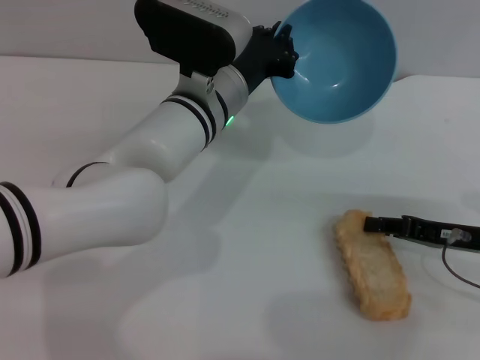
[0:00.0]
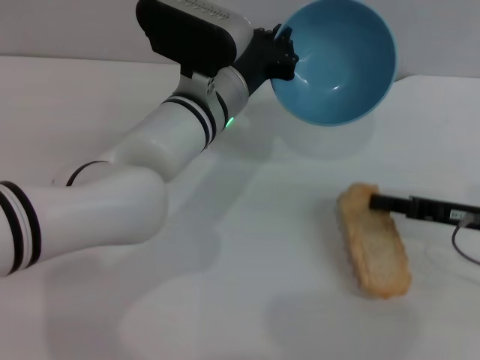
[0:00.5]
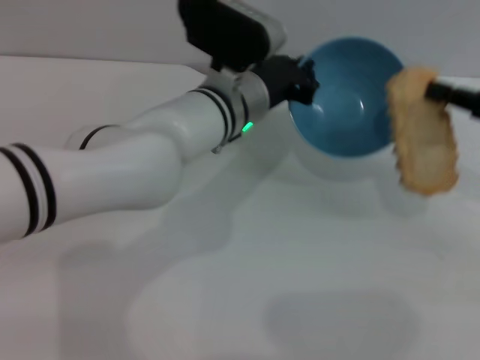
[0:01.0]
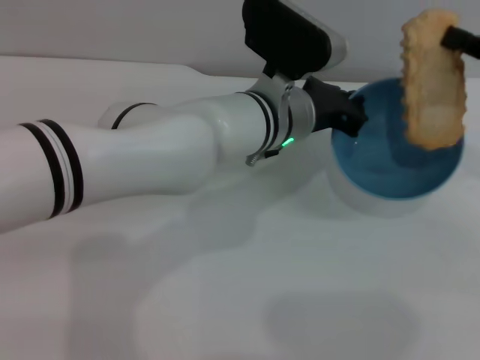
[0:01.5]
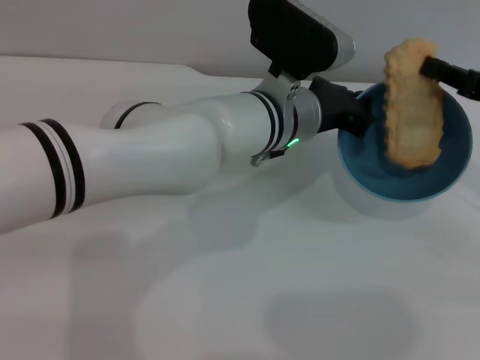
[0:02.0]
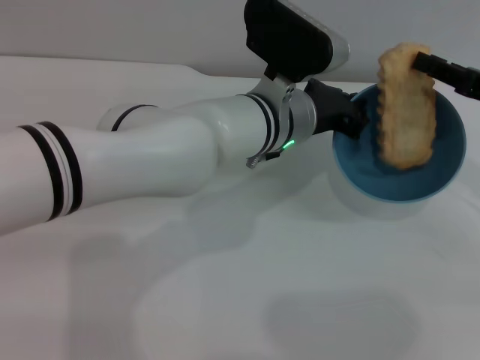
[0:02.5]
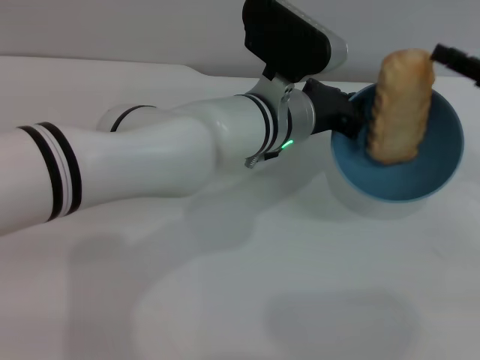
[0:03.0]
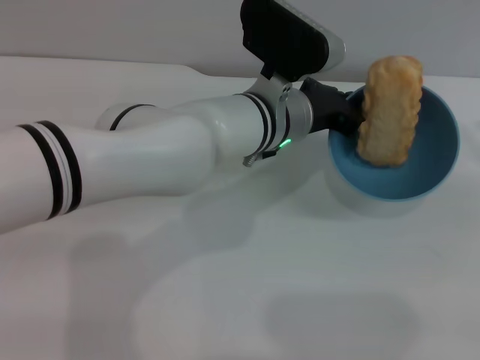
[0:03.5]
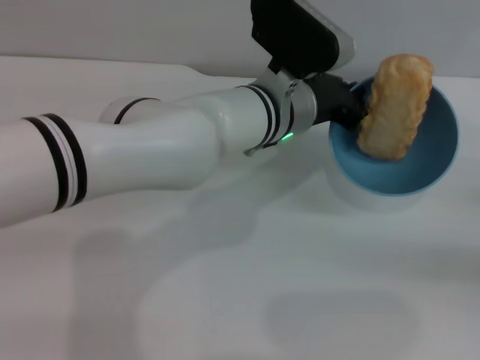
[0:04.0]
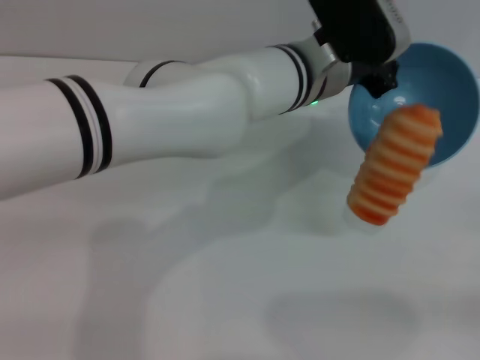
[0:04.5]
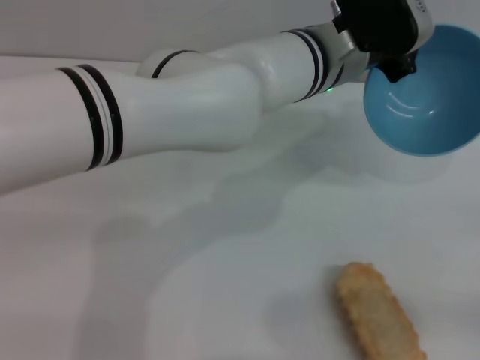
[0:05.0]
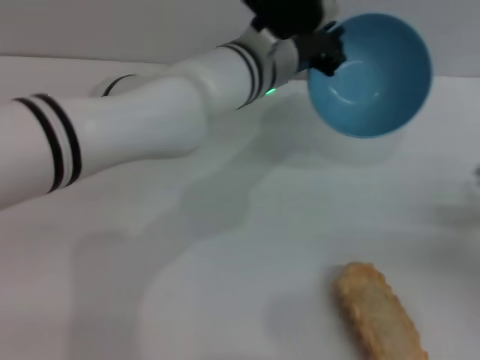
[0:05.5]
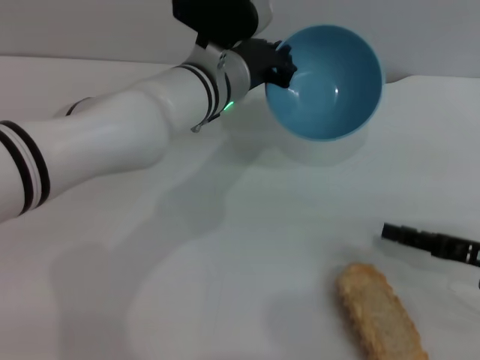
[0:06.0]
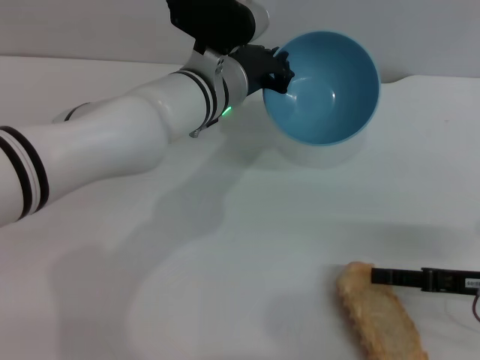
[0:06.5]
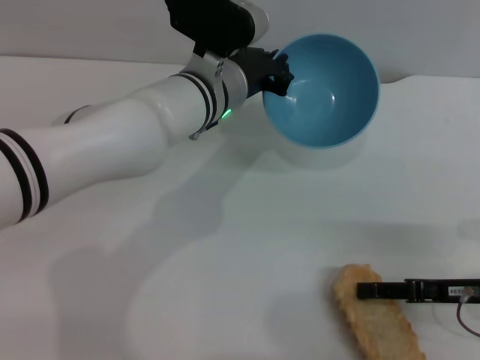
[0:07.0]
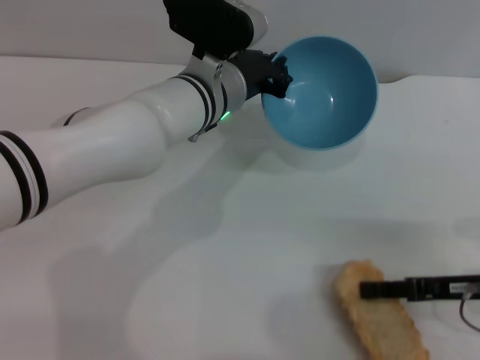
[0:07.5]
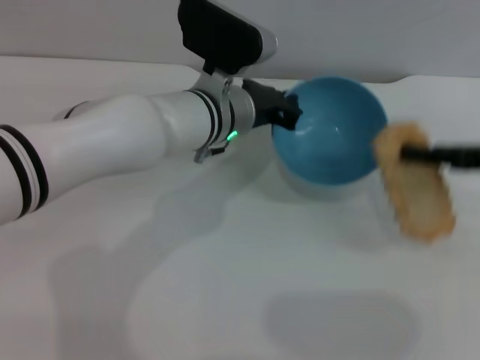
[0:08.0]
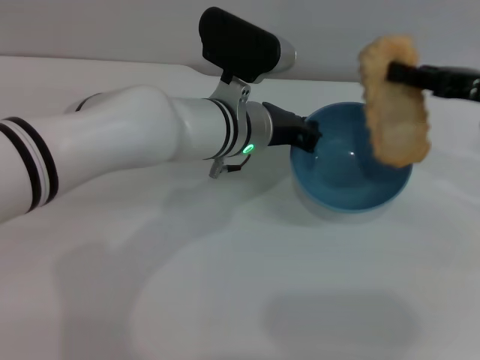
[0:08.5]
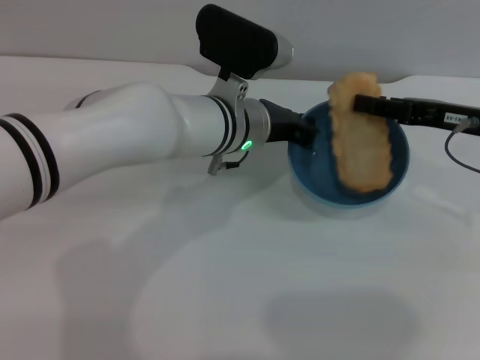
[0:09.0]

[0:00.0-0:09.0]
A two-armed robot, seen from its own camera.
Task of the whole recording: put the bread into the blue bowl and pour it out repeatedly.
Step, 0:01.0 to 0:03.0: Place the bread into the bowl.
Step, 0:03.5 to 0:05.0: Pour the bread out of the bowl.
Step, 0:05.5 to 0:07.5: Pick up the bread with the right gripper.
0:00.0 to 0:02.0: The left gripper moves to the right, some 5 cm. Meanwhile the right gripper shifts some 10 cm upward, and closes its fingers.
0:02.0 to 0:04.5: The right gripper goes approximately 20 cm backward, to the right and downward, and opens up.
0:04.5 to 0:07.0: The left gripper heads to the left, covering some 10 cm. The right gripper is displaced to the left and forward by roughly 15 cm.
0:07.0 to 0:09.0: The right gripper moves forward and upward, roughly 15 cm, and closes.

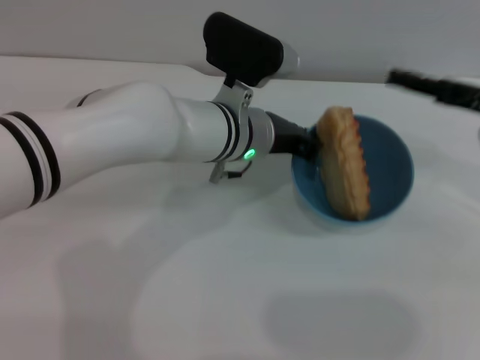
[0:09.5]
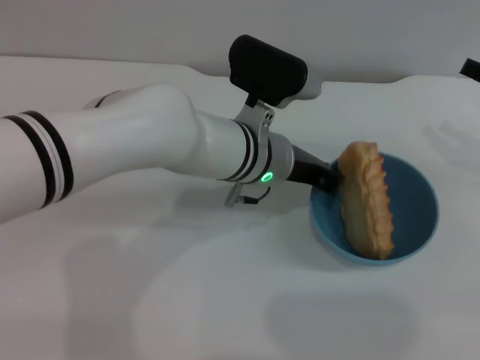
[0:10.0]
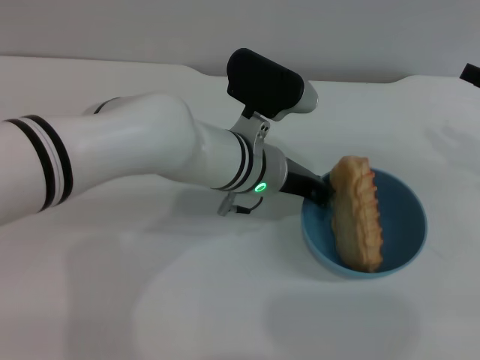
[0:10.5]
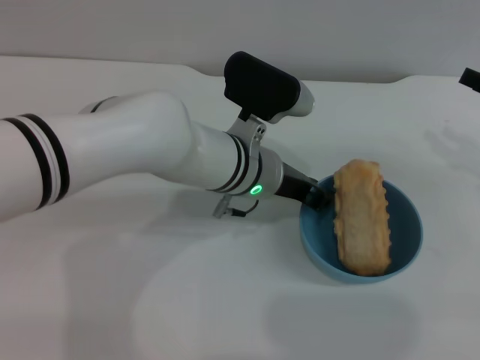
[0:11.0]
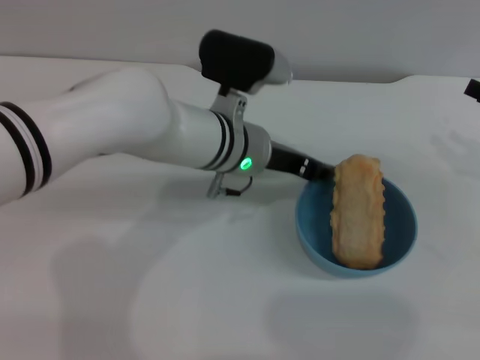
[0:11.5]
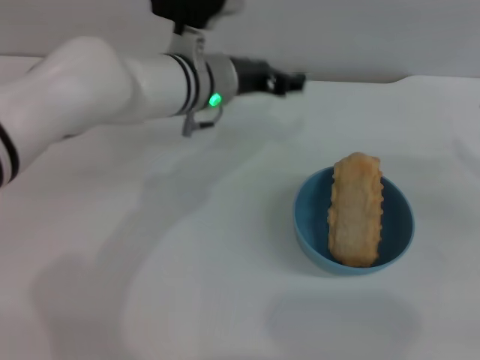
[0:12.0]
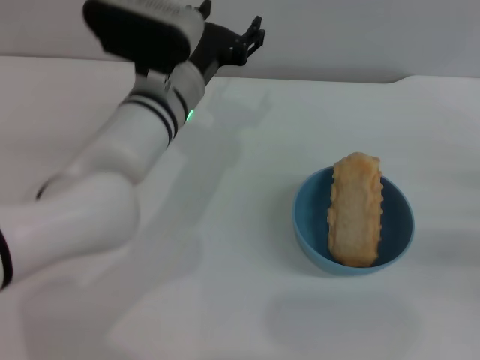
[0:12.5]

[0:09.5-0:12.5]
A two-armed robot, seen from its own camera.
Task of the whole recording: put the bread into the blue bowl and pour it out repeatedly.
Step, 0:09.5 to 0:12.0: Place the bowl on the table.
0:09.5 to 0:11.0: The right gripper heads to the right, covering approximately 5 cm.
0:11.0 to 0:12.5: The left gripper goes roughly 5 cm to the left, and opens up, while the right gripper shifts roughly 10 cm downward and backward.
